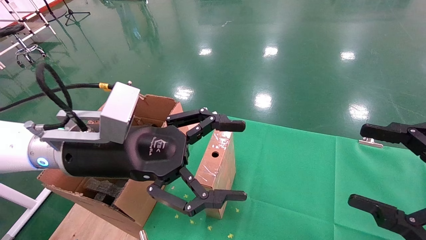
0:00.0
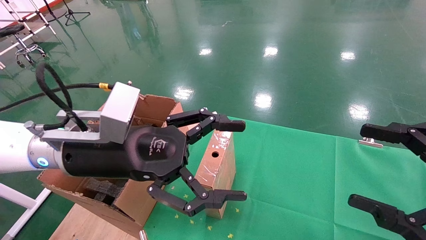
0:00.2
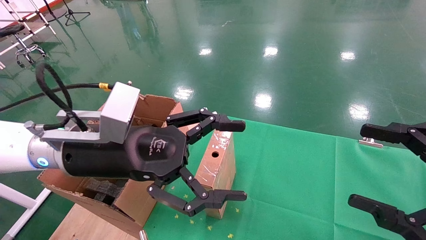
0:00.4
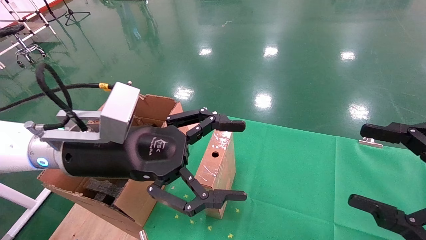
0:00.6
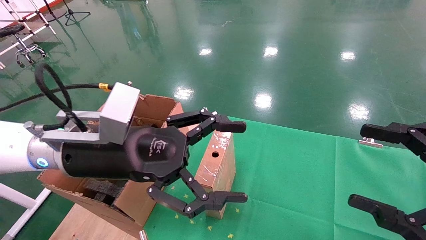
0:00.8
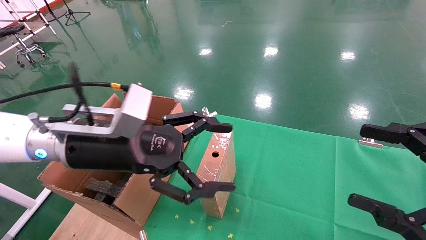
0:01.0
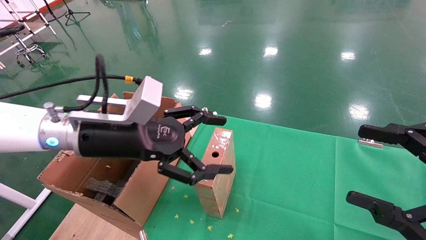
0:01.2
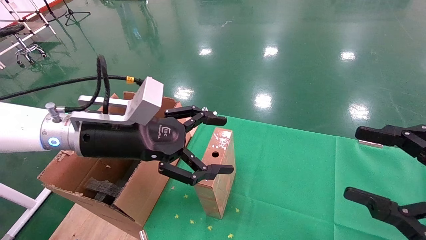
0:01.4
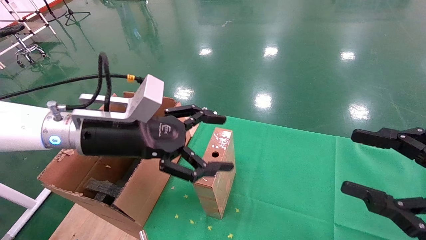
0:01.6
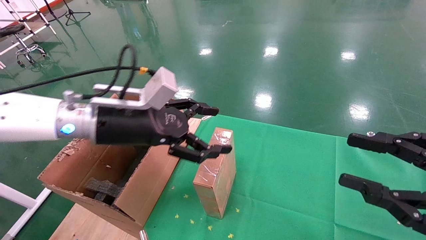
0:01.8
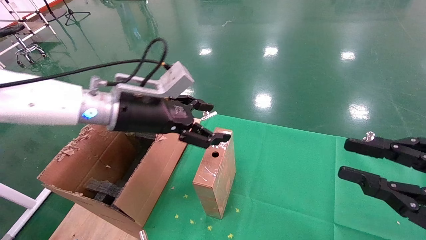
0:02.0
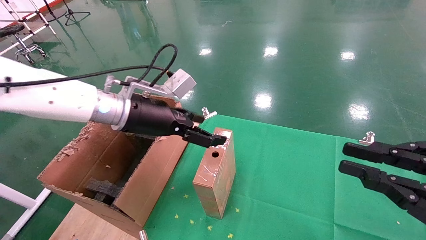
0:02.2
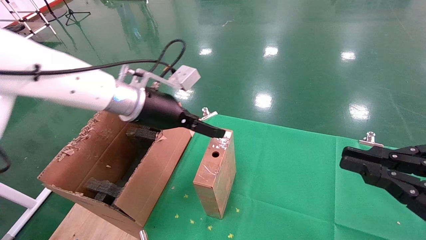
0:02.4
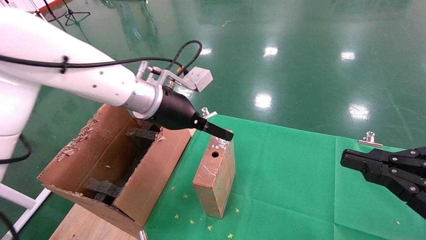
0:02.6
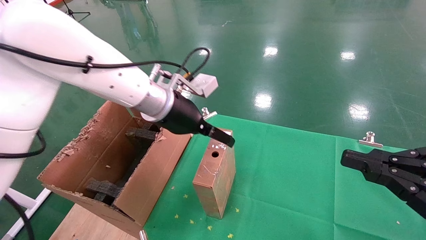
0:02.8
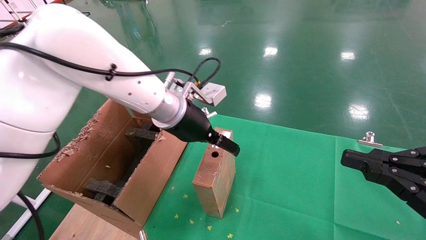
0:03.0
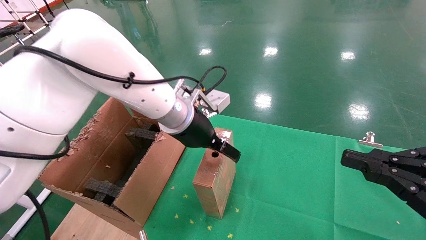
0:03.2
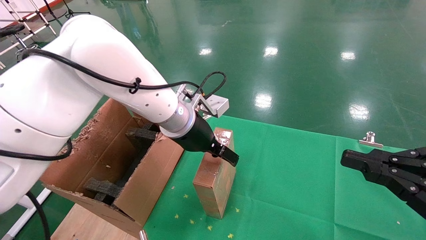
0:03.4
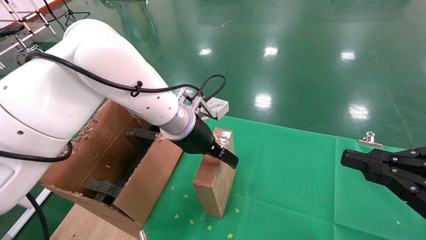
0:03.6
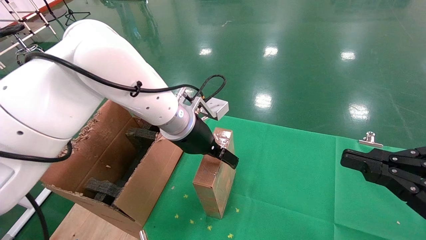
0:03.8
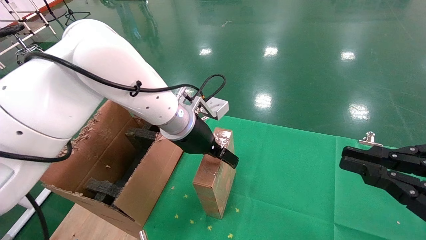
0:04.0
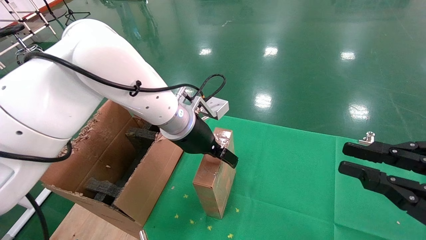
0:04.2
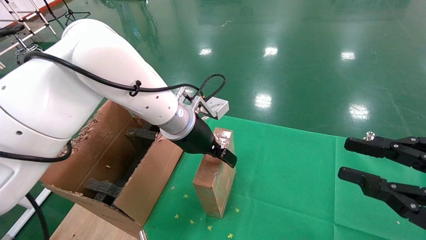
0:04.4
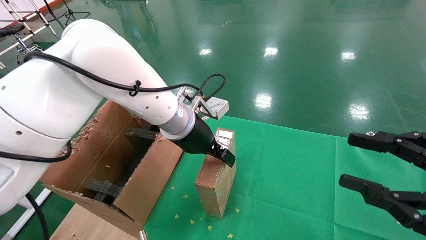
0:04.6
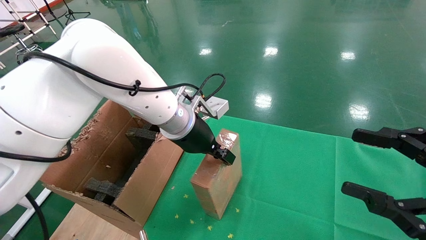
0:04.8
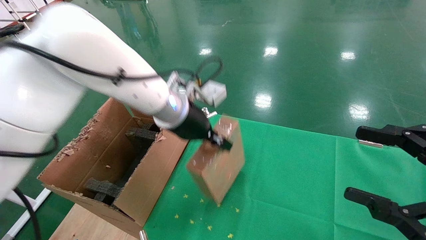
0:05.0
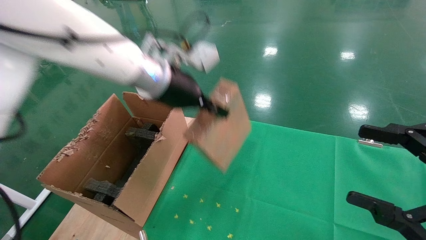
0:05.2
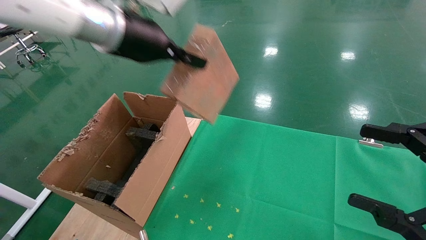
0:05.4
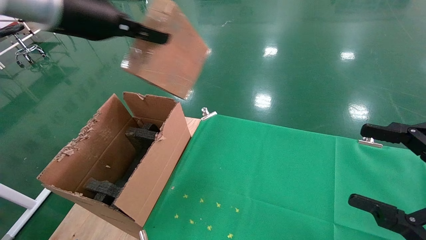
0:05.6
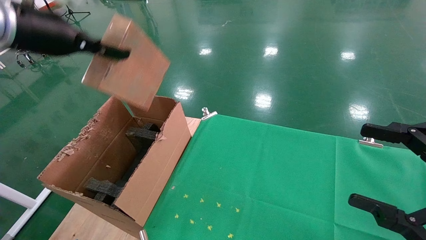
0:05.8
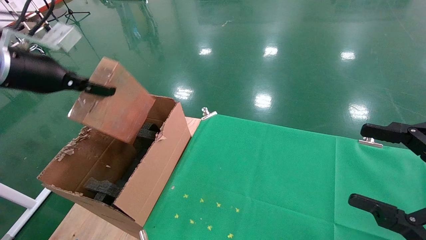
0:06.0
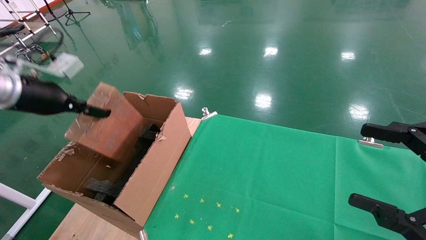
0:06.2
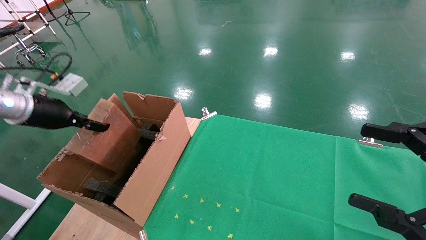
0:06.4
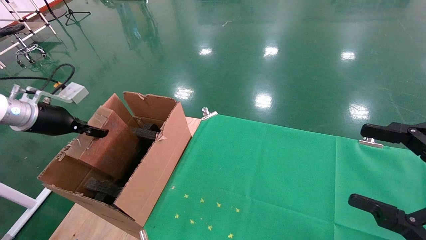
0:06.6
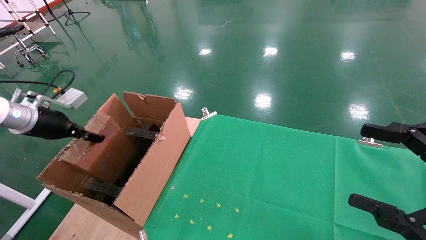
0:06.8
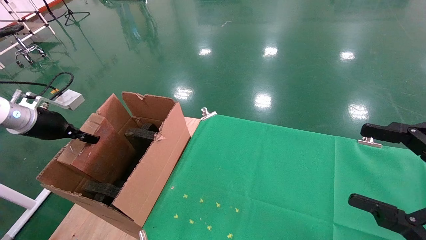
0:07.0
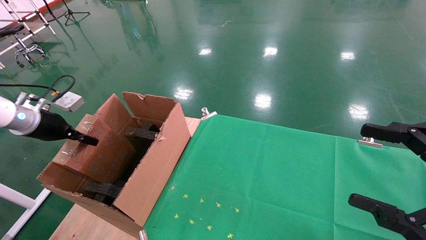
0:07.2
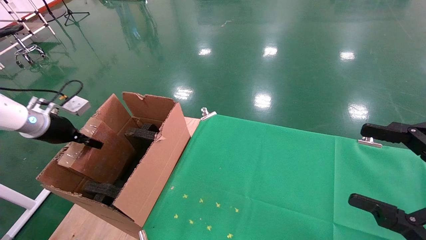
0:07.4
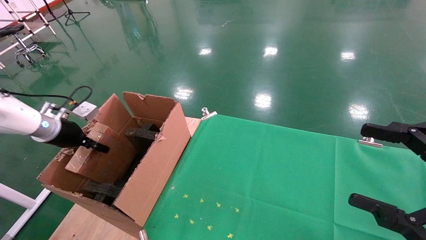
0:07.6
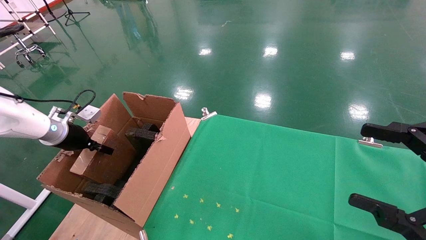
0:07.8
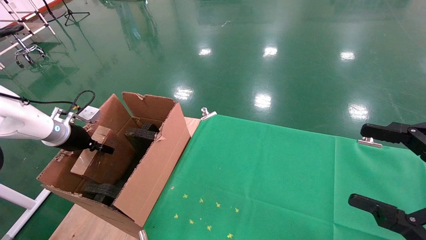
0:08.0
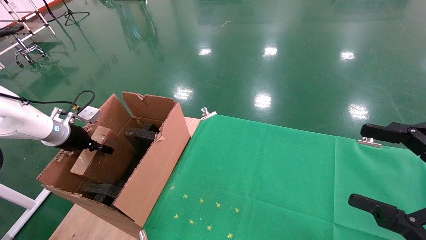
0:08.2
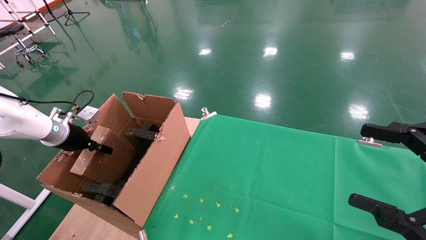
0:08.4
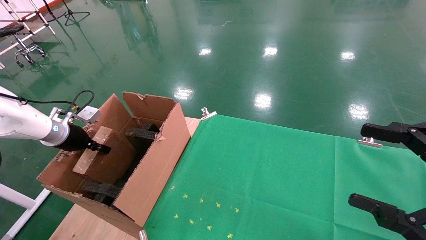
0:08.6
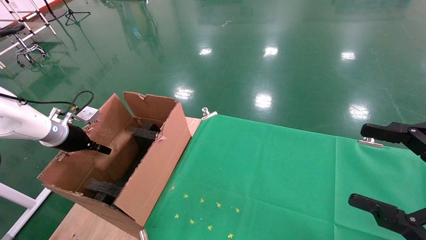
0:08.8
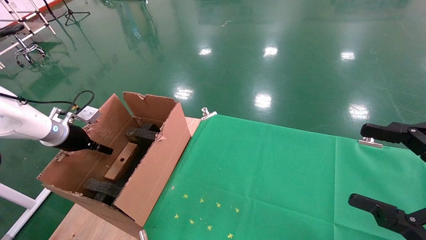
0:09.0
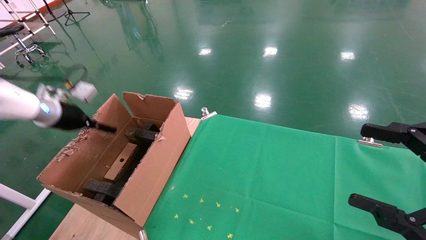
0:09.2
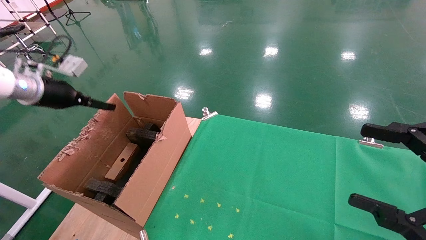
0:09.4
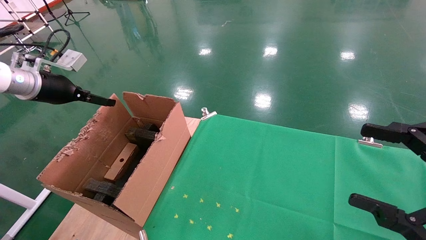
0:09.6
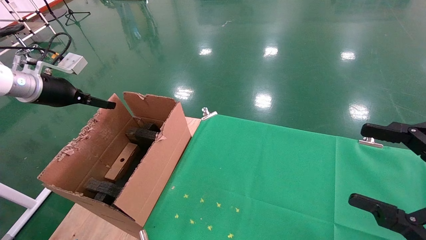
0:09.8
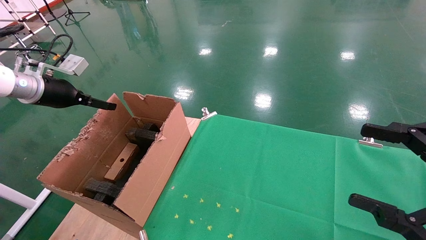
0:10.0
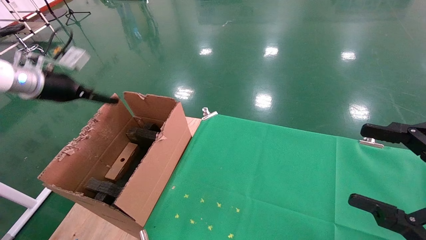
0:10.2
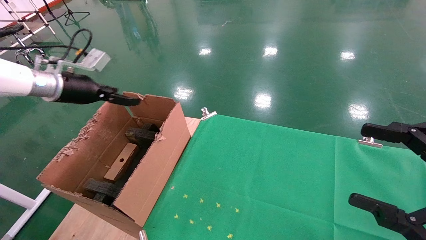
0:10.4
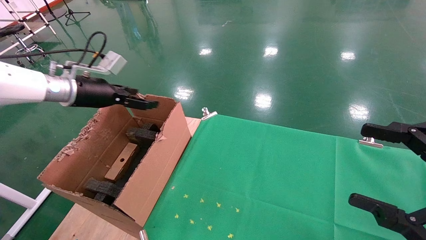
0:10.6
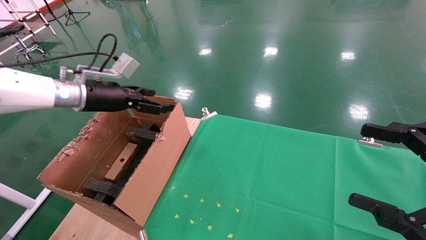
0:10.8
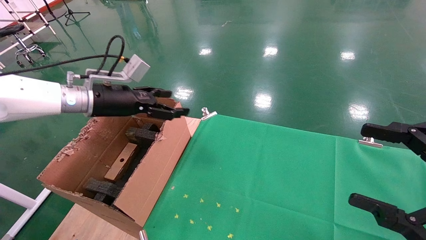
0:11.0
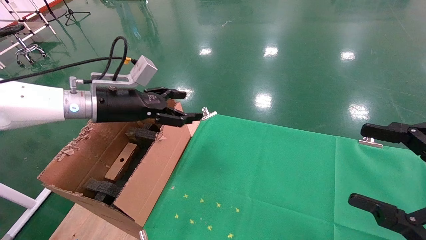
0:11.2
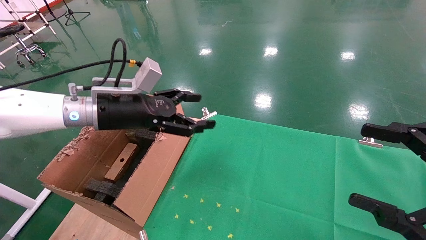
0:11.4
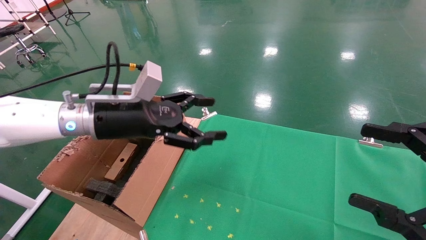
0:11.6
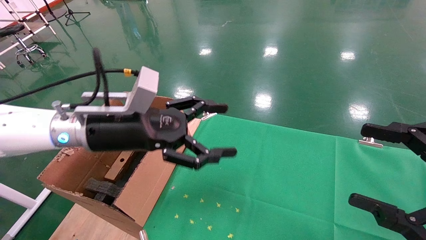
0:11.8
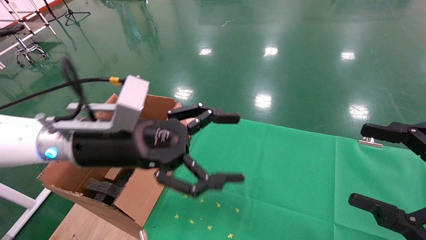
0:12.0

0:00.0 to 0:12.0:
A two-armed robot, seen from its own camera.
Task of the whole recording: using a robotic arm to pick up a cardboard box and palace it the carton.
Step, 0:01.0 to 0:04.8: Pick up the mouse and the power cord paper box.
Step, 0:05.0 to 0:09.0: Place the mouse and the power cord paper box into the container.
0:00.0 to 0:01.6: The left gripper moves approximately 5 cm.
0:01.6 to 0:03.0: The left gripper is displaced to the right and forward by roughly 15 cm, while the right gripper closes.
0:03.0 to 0:04.4: The grippers move only a little.
0:04.4 to 0:06.0: The right gripper opens up. Meanwhile the left gripper goes roughly 30 cm to the left, and closes its fingers.
0:06.0 to 0:07.6: The left gripper is displaced downward, to the left and forward by roughly 20 cm.
0:07.6 to 0:09.0: The left gripper opens up.
0:09.0 to 0:10.4: The left gripper moves upward and to the right, some 10 cm, and opens its fingers.
0:10.4 to 0:12.0: The left gripper moves to the right and backward, some 25 cm.

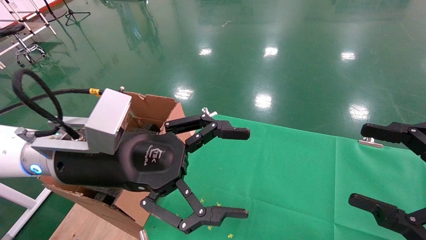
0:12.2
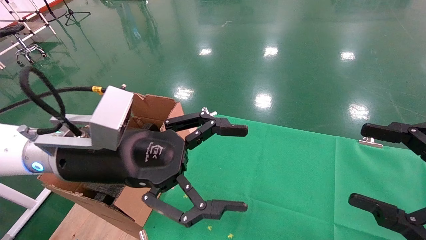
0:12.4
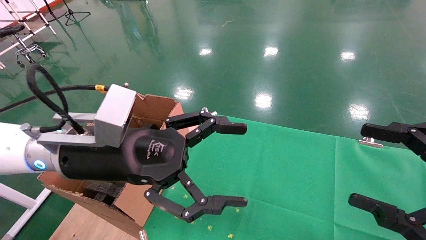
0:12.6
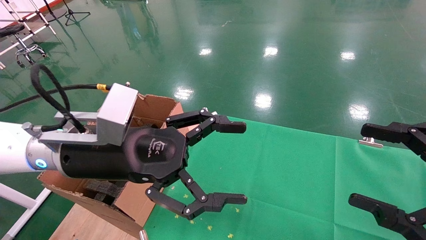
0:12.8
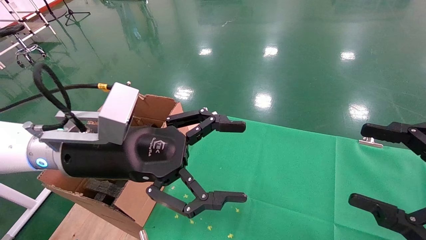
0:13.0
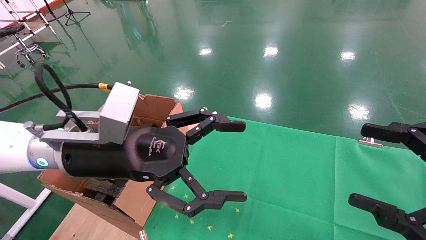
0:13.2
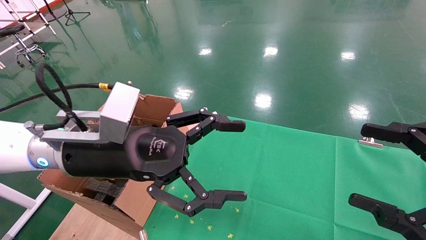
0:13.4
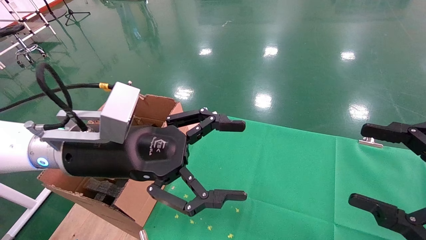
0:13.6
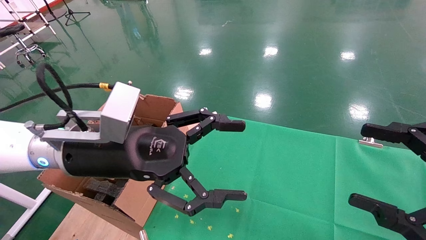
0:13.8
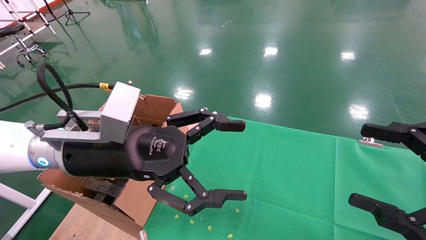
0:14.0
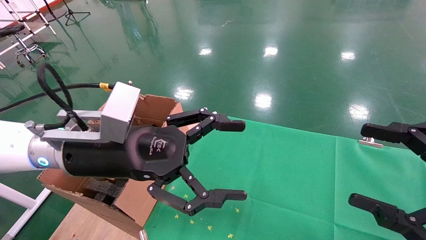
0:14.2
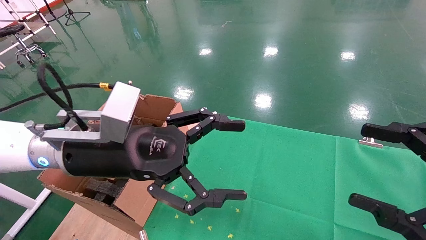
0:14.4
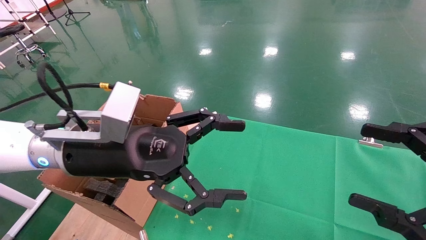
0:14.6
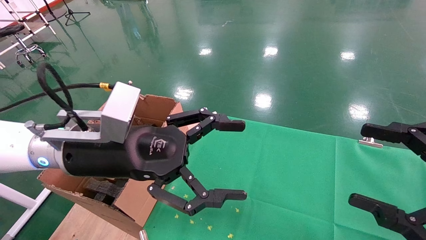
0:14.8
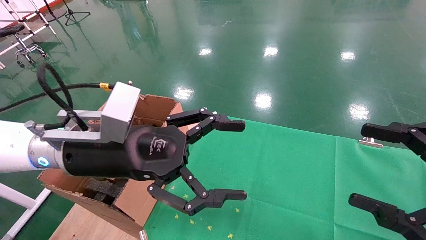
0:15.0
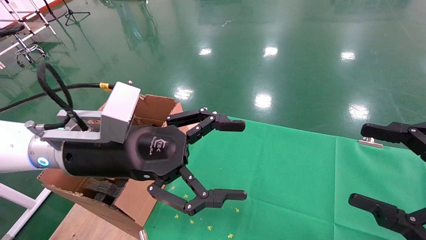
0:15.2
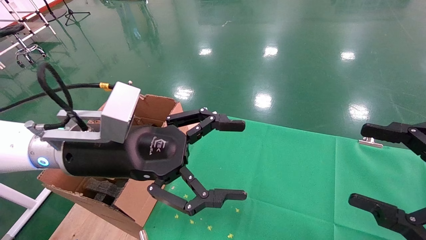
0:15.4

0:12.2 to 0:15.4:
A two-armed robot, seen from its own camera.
Task of the whole recording: using a robotic arm to pick up a cardboard box and palace it the carton.
0:12.2 to 0:15.4: Both grippers stay about where they are.

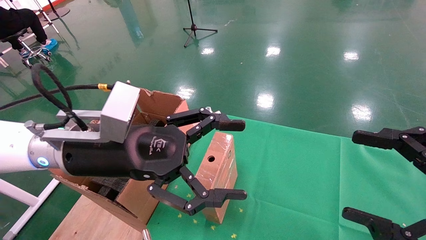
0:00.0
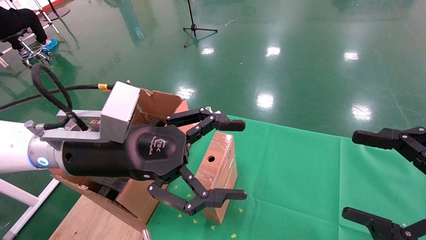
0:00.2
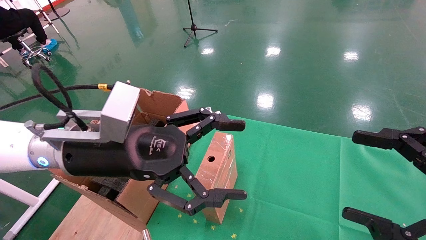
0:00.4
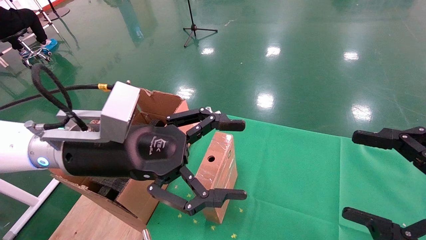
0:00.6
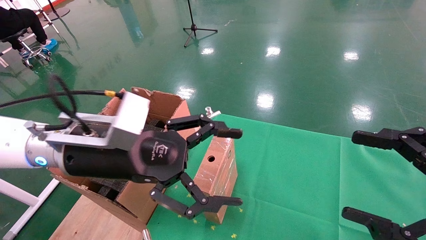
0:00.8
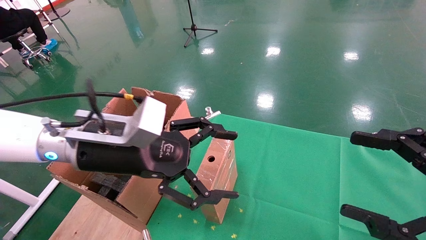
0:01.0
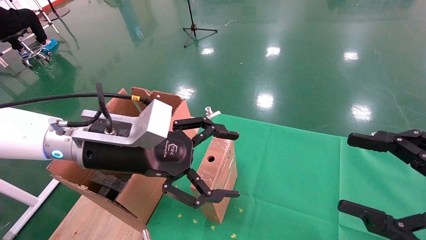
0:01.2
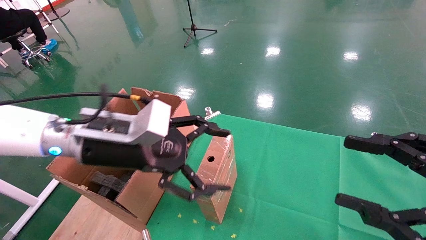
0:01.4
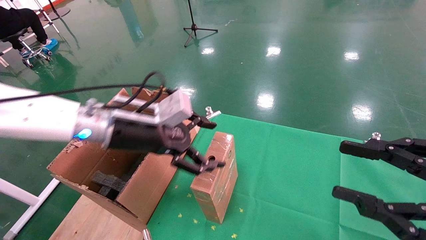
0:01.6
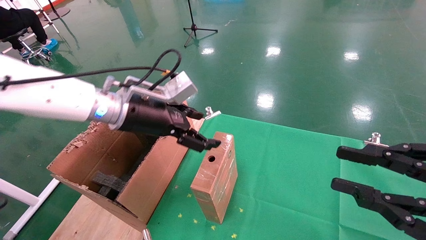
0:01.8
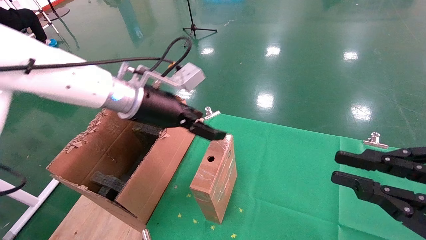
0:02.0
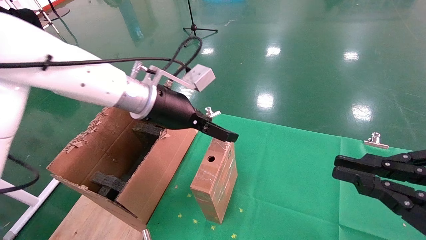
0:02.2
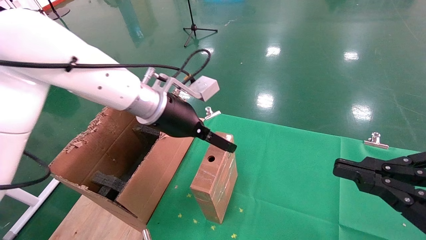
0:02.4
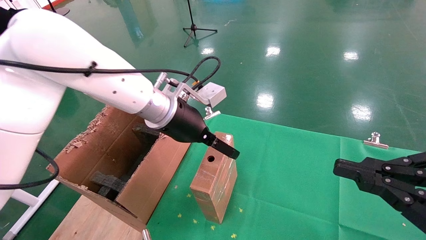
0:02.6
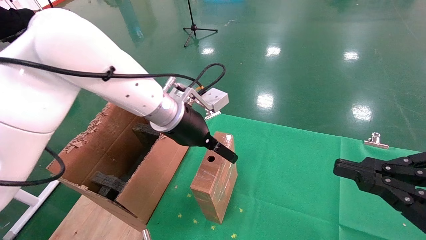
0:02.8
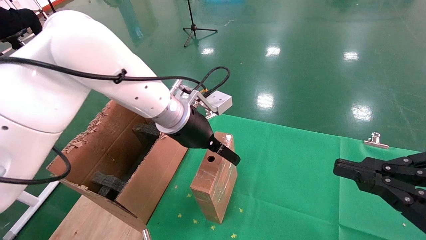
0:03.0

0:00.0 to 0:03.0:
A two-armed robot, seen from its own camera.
Task of the whole recording: using a robotic arm to pick up a cardboard box and palace it the carton.
0:00.0 to 0:01.6: The right gripper closes. The left gripper travels forward by about 10 cm.
0:01.6 to 0:03.0: The right gripper closes up; the left gripper moves to the right, roughly 10 cm.
